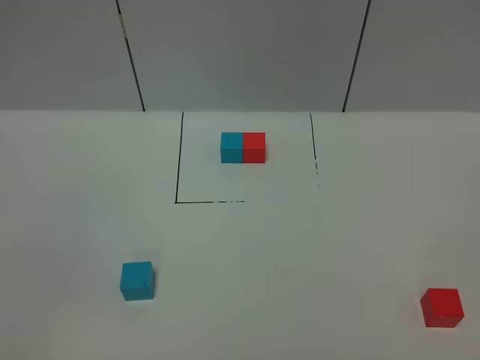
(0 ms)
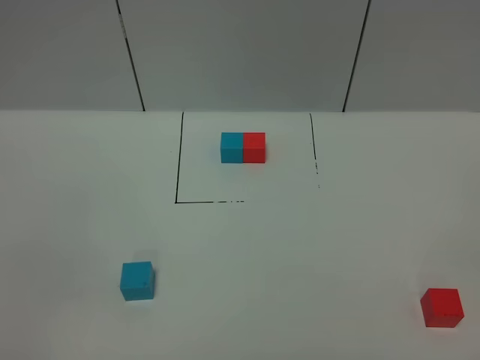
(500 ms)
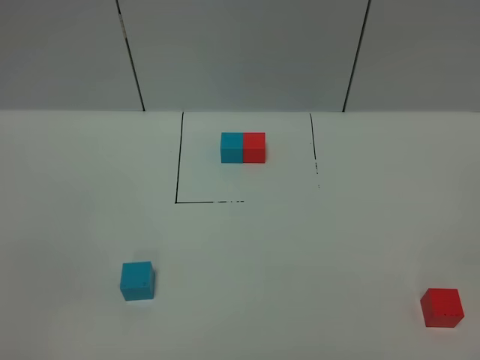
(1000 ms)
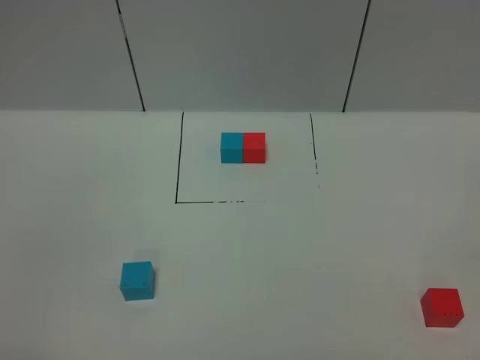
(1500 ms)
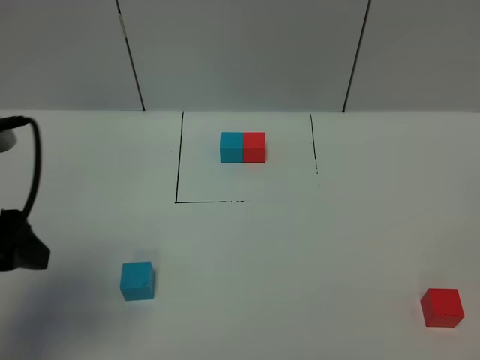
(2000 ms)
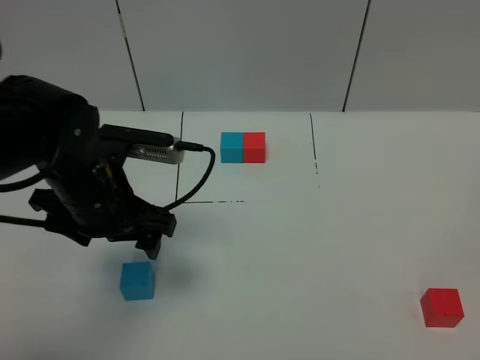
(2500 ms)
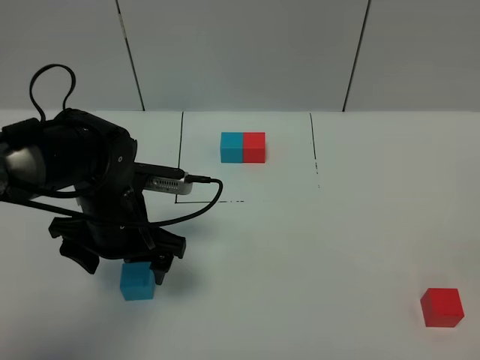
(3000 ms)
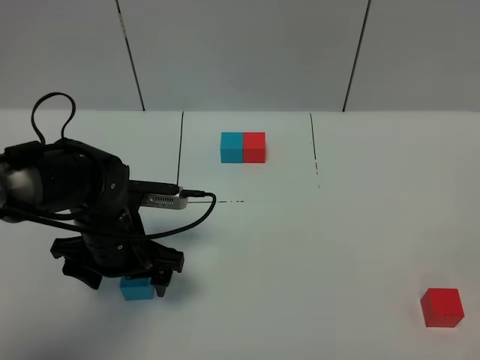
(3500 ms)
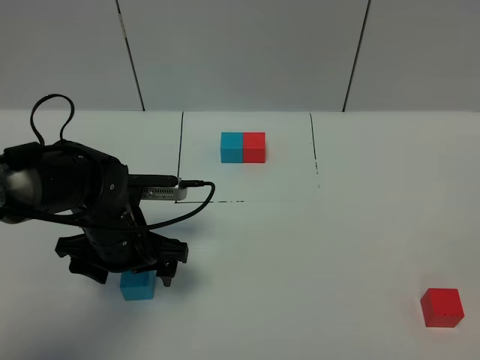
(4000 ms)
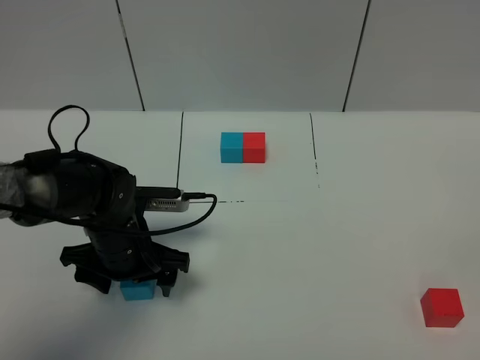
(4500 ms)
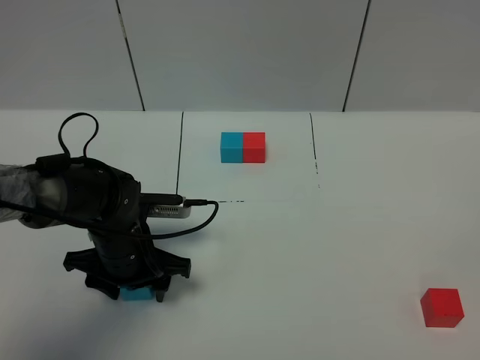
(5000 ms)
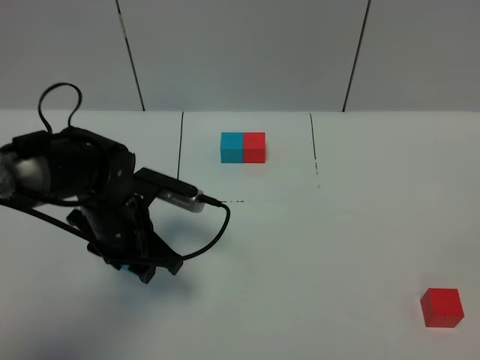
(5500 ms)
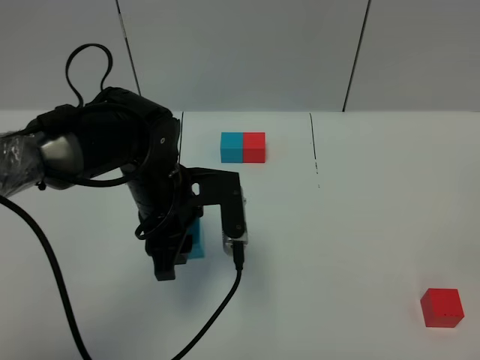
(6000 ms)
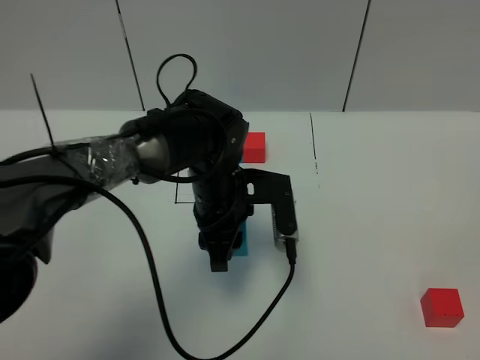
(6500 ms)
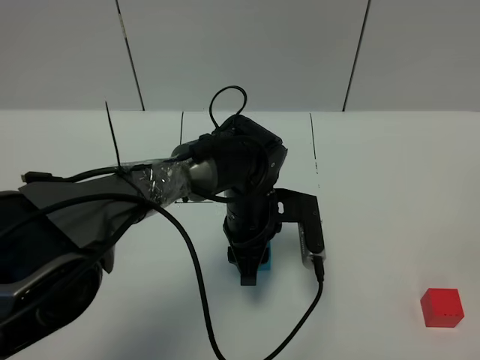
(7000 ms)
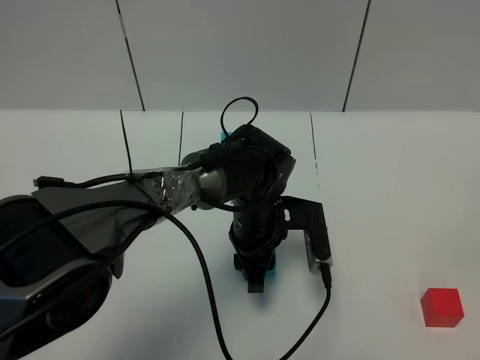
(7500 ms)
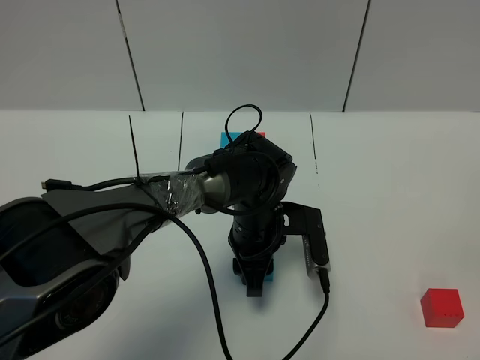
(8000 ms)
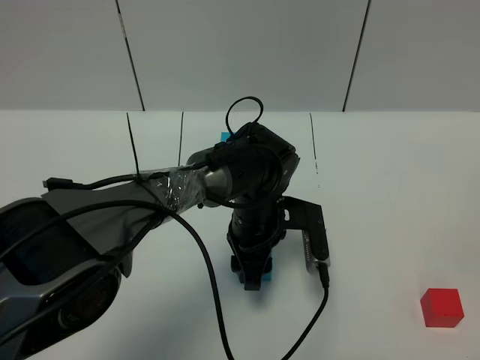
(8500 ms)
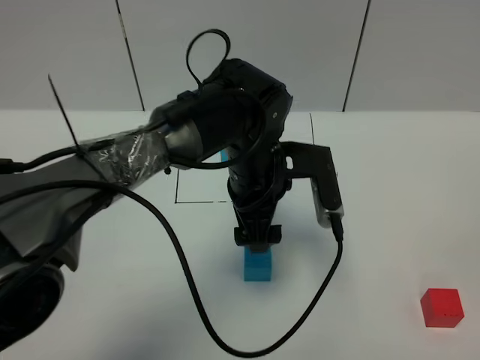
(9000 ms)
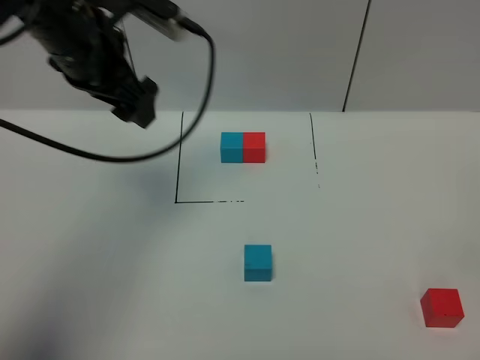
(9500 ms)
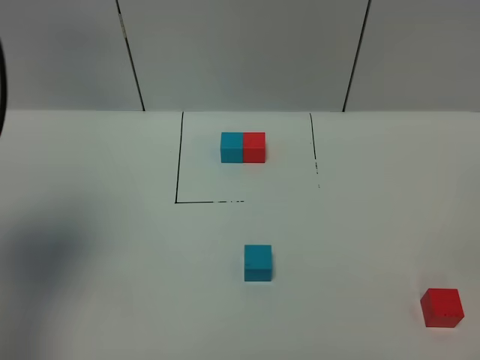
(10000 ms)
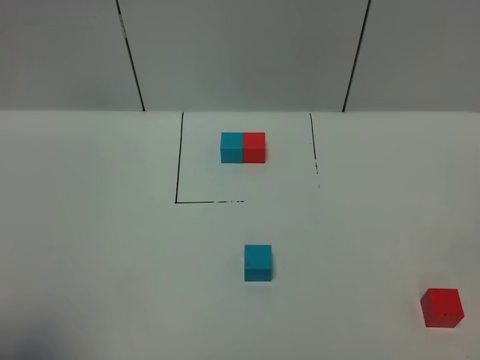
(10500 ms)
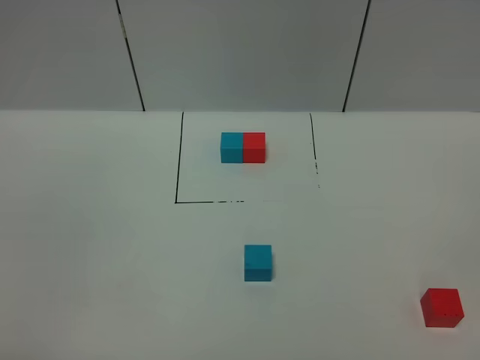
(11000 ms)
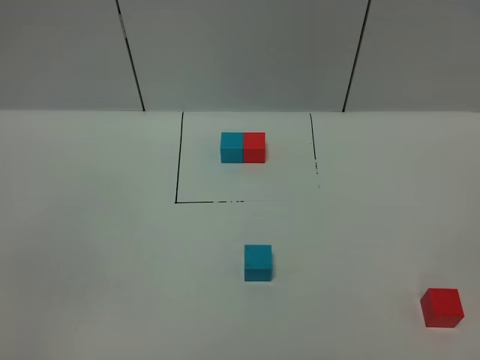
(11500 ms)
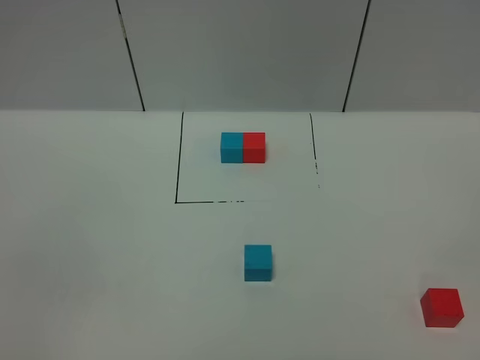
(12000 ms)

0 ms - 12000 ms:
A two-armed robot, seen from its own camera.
Task of the whole recording: According to the building block template in front, assemble the scattered blocks together.
Step, 2000 ms - 9000 ms: Put the blue cube in the center of the table.
0 ms - 2000 ms: The left gripper goes about 25 cm forward.
2000 ms - 4000 ms: The left gripper is displaced downward, to the right and forward by some 20 cm.
4000 ms - 6000 ms: The left gripper heads to the right and upward, covering roughly 10 cm, and closes its fingers.
6000 ms - 8000 ms: The left gripper is displaced to the right and downward by some 15 cm.
8000 ms - 10000 ms: The left gripper heads to the left and upward, covering roughly 40 cm, and opens its fingers.
10000 ms - 12000 ms: The left gripper is displaced backward by about 25 cm.

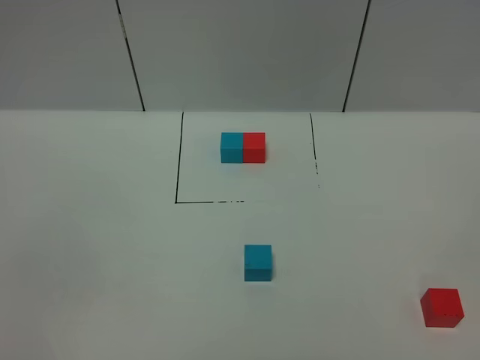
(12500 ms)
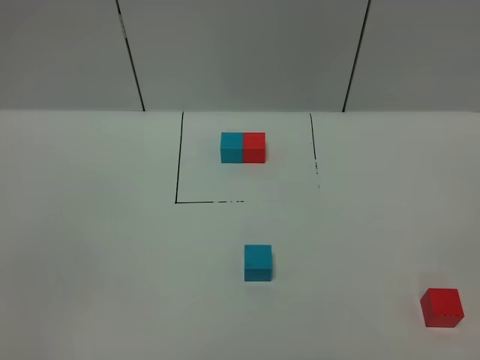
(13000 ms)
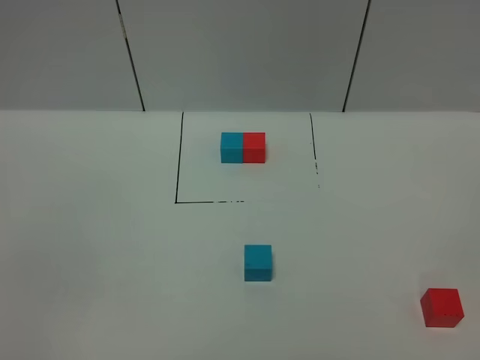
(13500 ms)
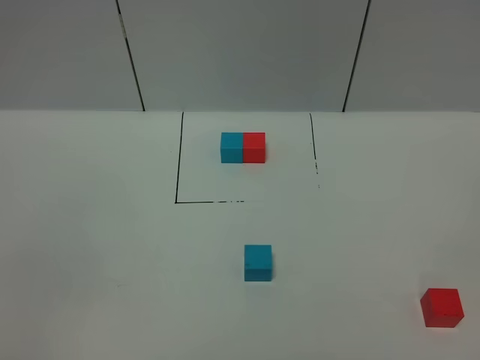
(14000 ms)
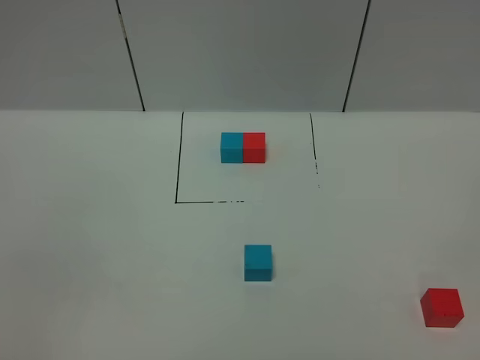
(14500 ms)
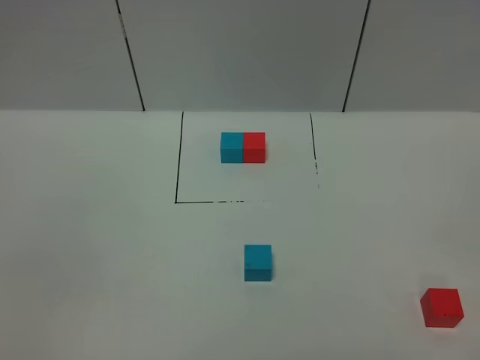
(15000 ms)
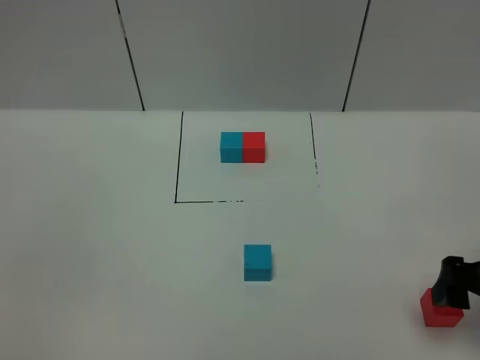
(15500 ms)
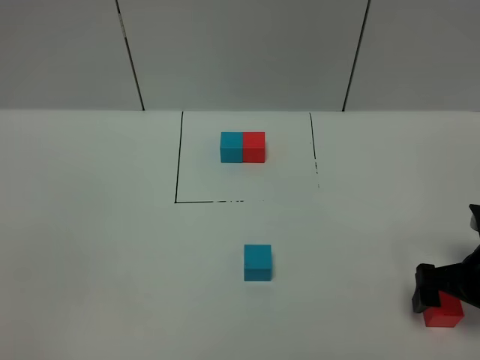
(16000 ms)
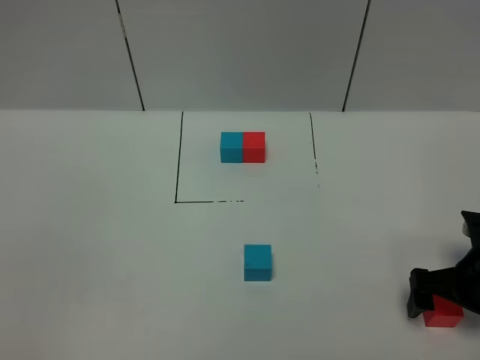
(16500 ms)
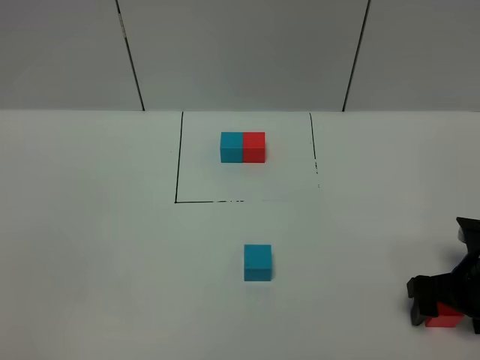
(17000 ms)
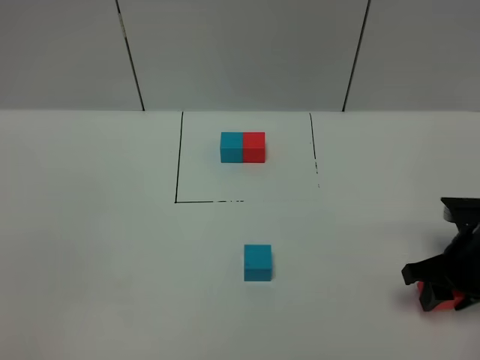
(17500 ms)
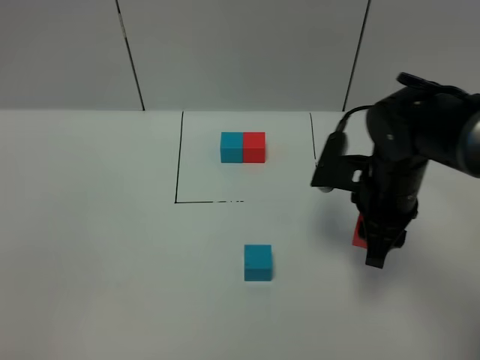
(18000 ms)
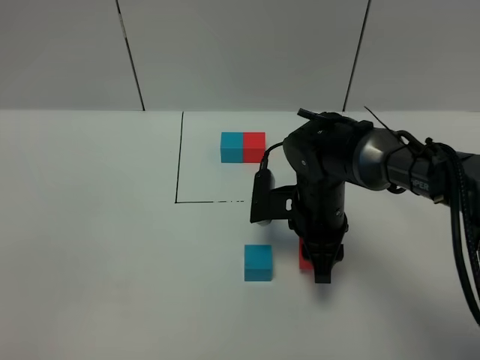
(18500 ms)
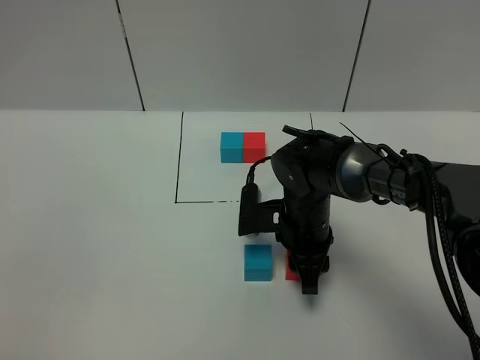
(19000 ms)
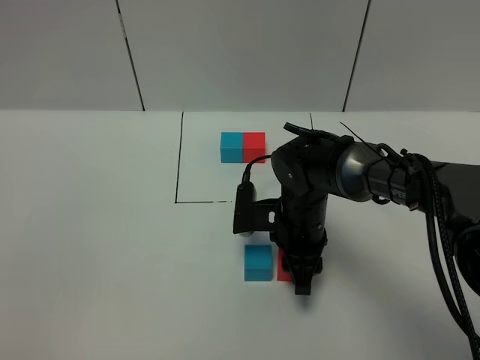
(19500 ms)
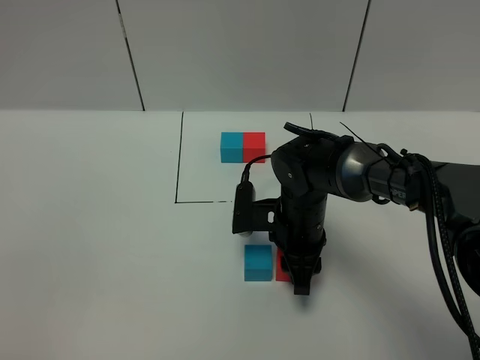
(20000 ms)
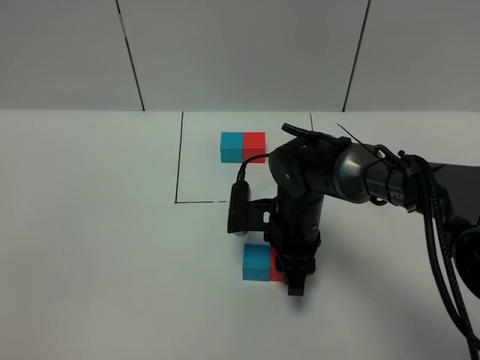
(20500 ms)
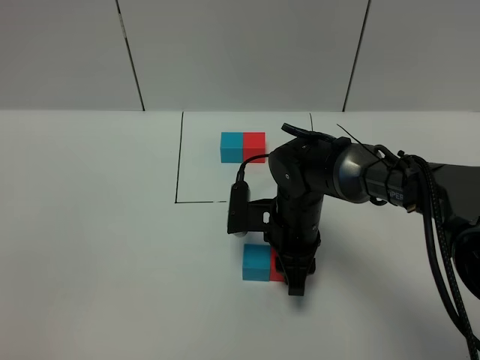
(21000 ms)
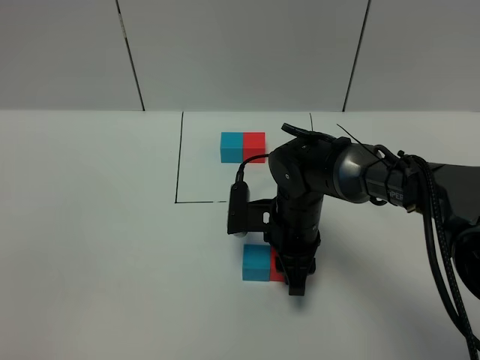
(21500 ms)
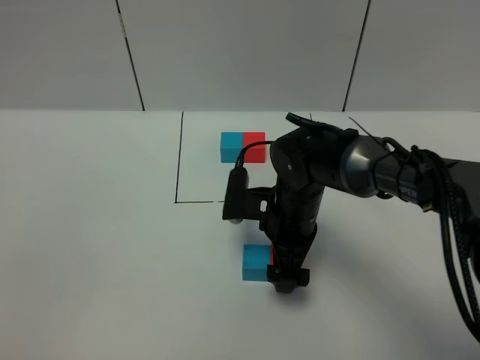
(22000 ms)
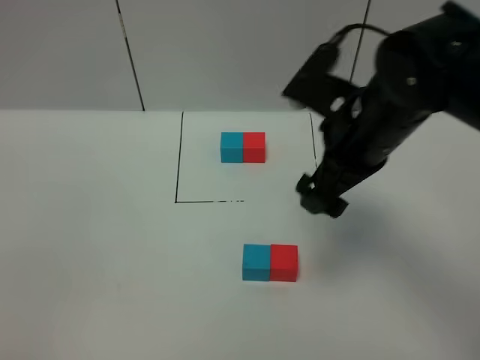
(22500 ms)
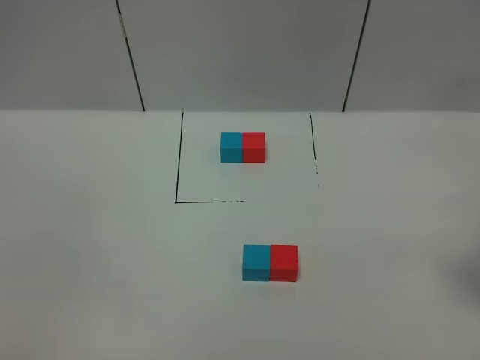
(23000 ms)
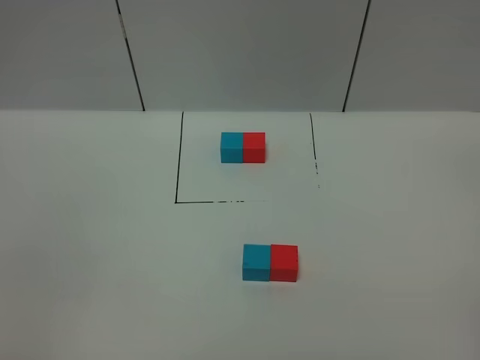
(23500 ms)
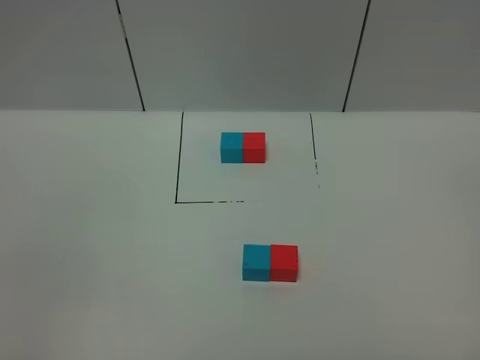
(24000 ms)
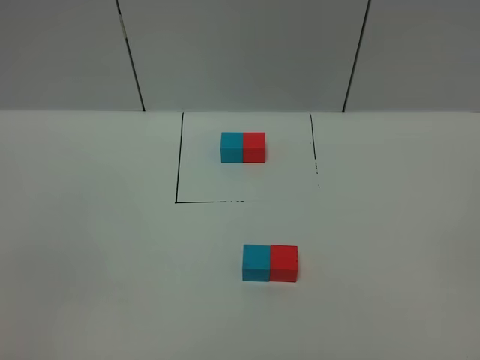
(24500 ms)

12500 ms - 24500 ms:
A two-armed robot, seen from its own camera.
Task of the whole recording: According to the building block template in front, assemble the scattered blocks together.
Step, 12500 ms - 22000 ms: Put the red cube on the right of the blue cube.
12500 ms - 14500 ms: Neither gripper changes place.
14500 ms - 16500 ms: The right gripper heads forward and downward, covering about 30 cm.
16500 ms - 18500 ms: The right gripper heads to the left and forward, covering roughly 20 cm, and closes up.
18500 ms - 20500 ms: The grippers stay close to where they were, moving slightly.
20500 ms - 22500 ms: The right gripper shifts roughly 20 cm upward, and opens.
22500 ms - 24500 ms: The right gripper moves backward and to the right, roughly 35 cm.

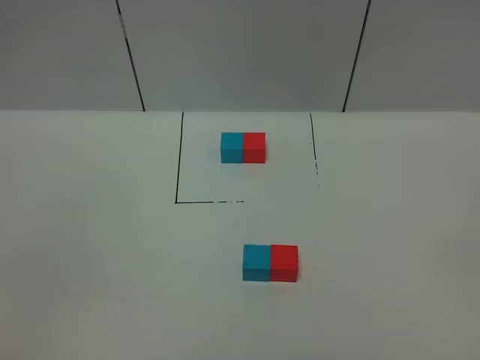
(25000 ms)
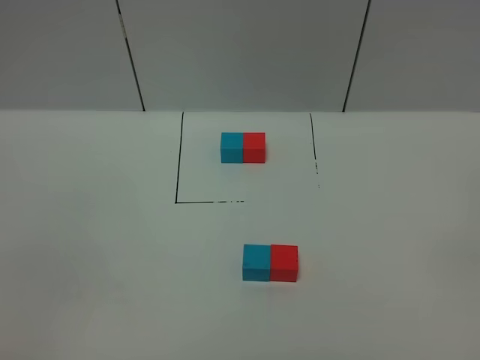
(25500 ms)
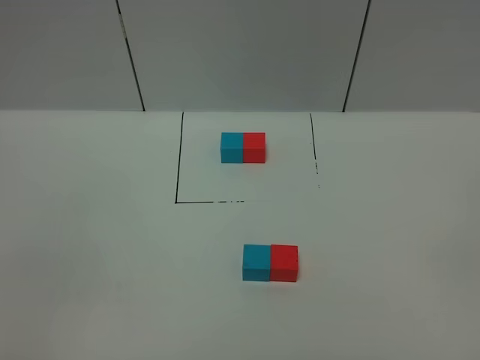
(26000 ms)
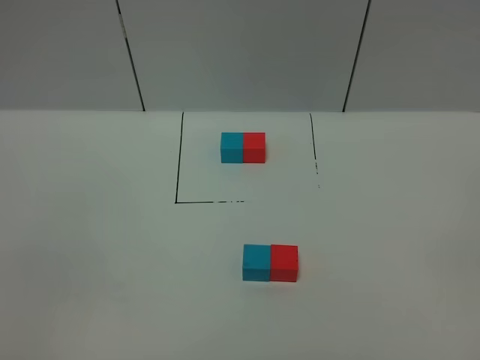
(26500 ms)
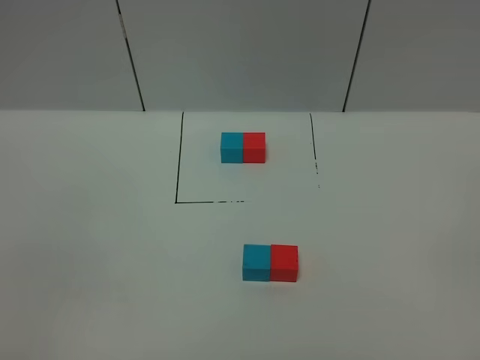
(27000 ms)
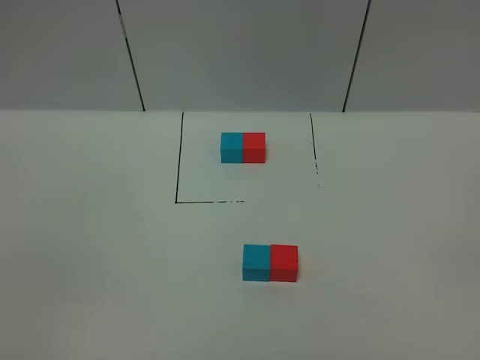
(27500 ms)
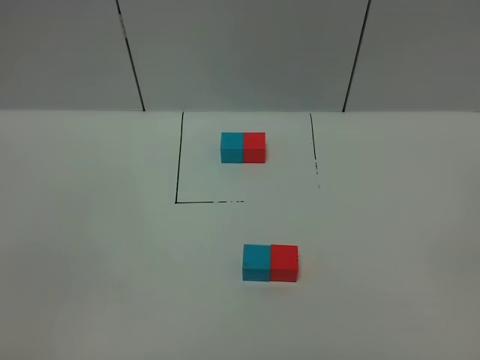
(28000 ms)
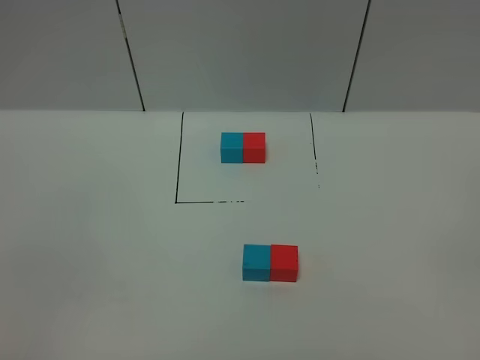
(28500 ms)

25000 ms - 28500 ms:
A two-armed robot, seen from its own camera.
Task of the whole recording: According to the building block template in front, assemble the scattered blocks together.
25000 ms - 28500 ms: Neither gripper changes place.
